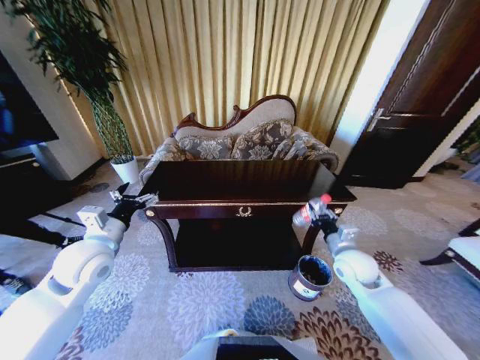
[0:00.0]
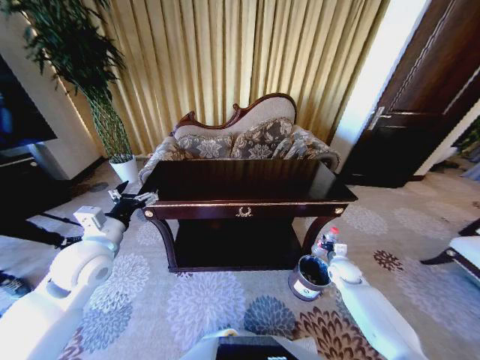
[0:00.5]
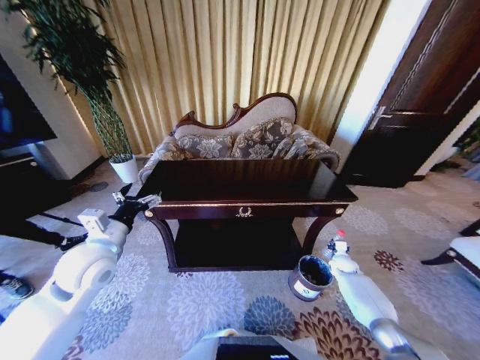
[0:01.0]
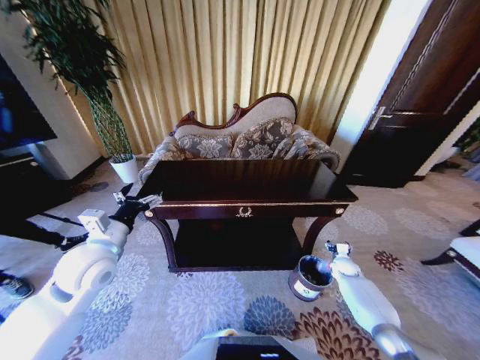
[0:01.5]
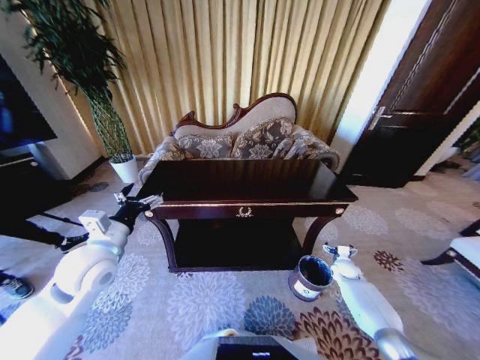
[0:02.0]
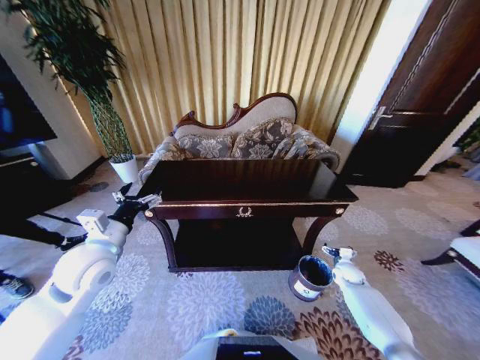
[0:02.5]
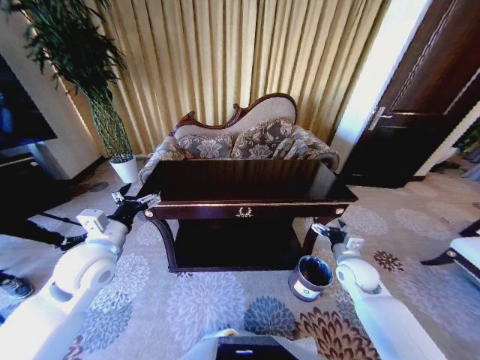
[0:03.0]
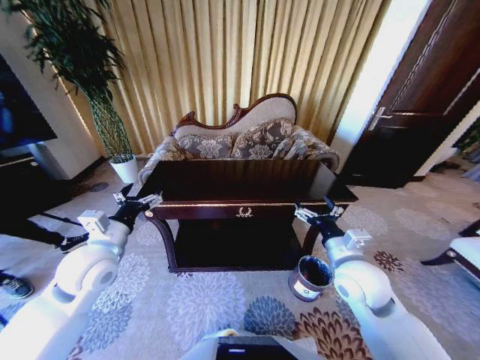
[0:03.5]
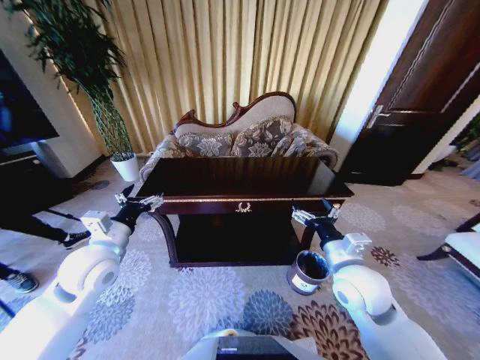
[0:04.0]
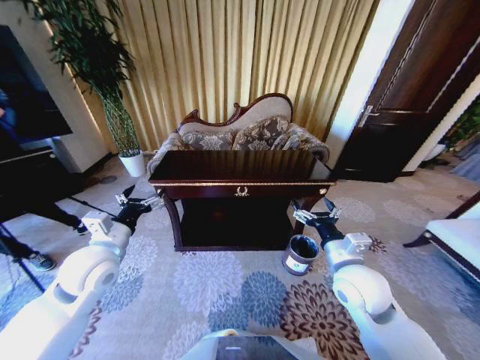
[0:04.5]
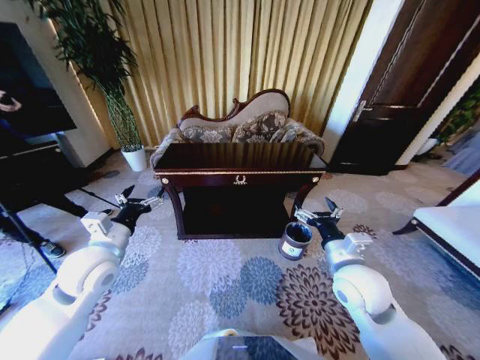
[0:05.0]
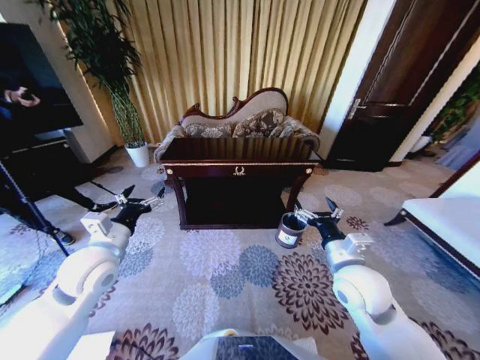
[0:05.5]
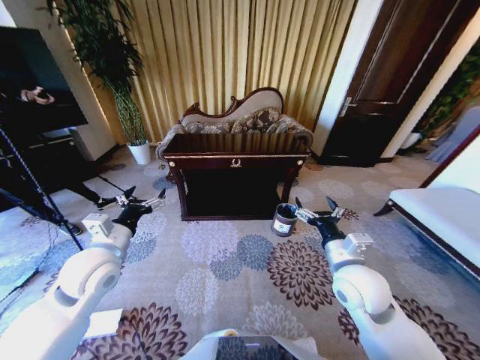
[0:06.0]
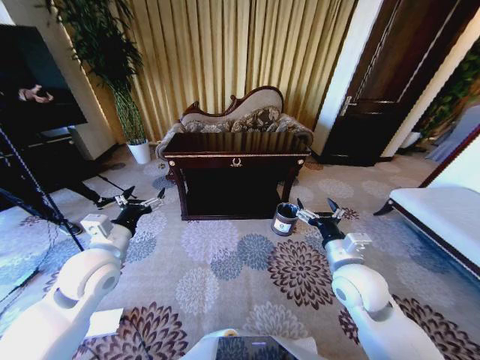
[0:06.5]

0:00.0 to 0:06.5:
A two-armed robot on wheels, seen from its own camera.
Task of the whole recording: Move to the front of the table and place the trash on the table into the trash bin.
0:00.0 to 0:02.0: The right gripper goes about 25 cm downward and to the right, and opens.
0:02.0 to 0:04.5: The right gripper travels upward, to the left and backward by some 40 cm.

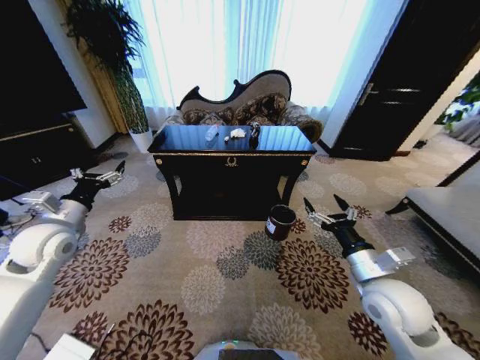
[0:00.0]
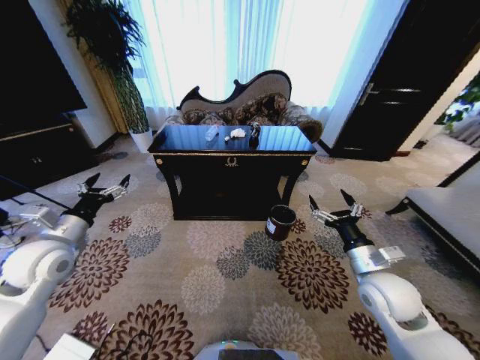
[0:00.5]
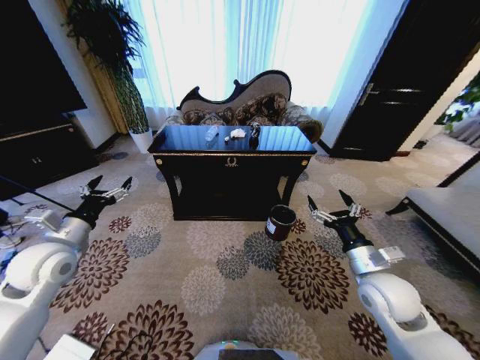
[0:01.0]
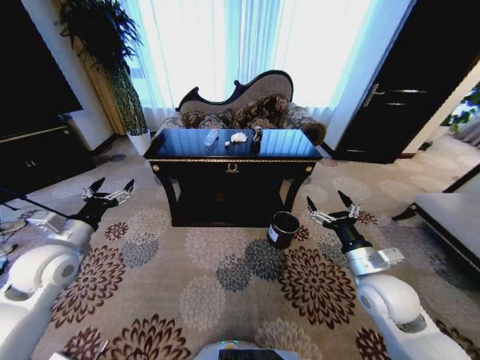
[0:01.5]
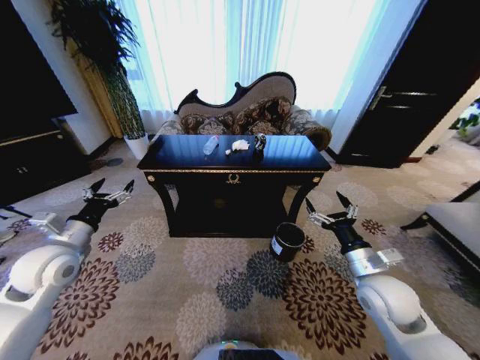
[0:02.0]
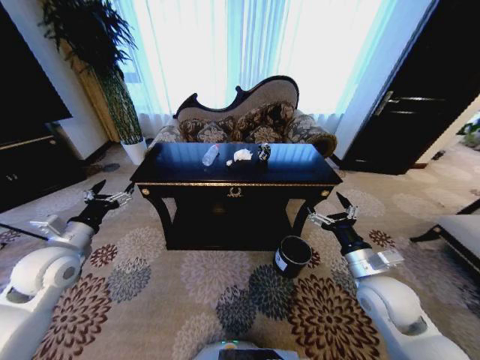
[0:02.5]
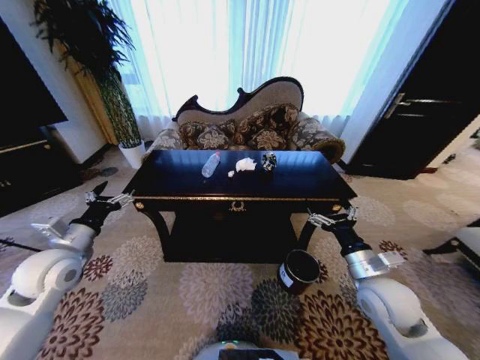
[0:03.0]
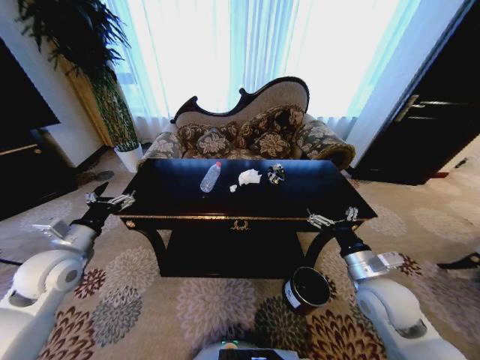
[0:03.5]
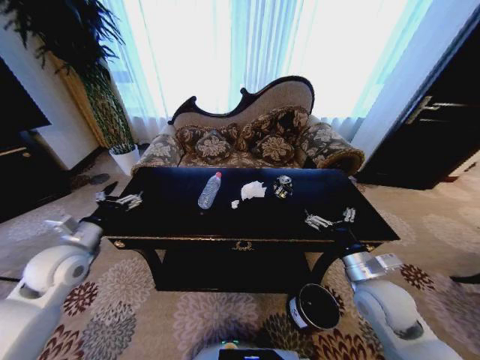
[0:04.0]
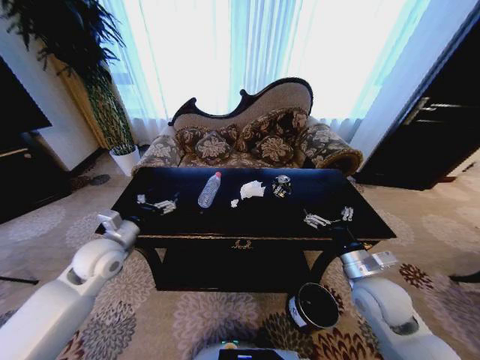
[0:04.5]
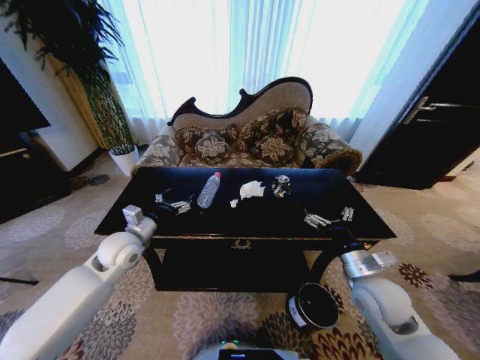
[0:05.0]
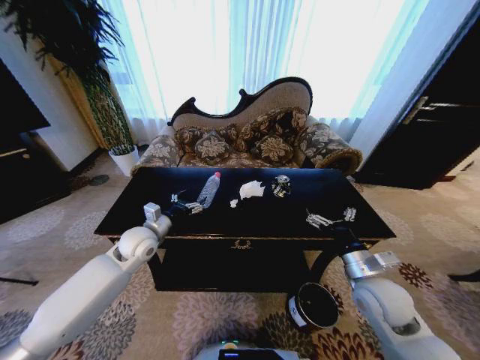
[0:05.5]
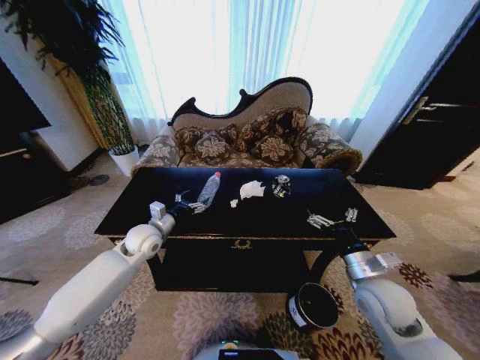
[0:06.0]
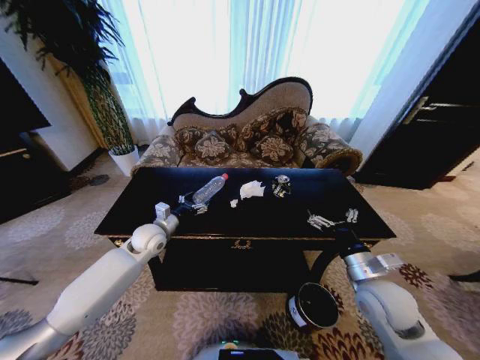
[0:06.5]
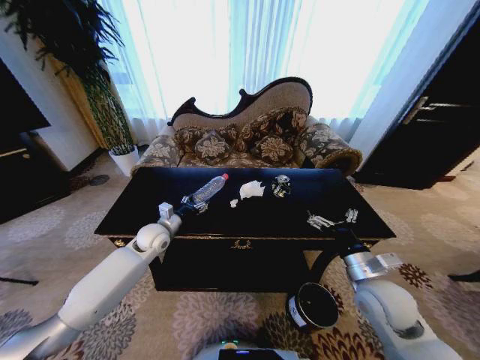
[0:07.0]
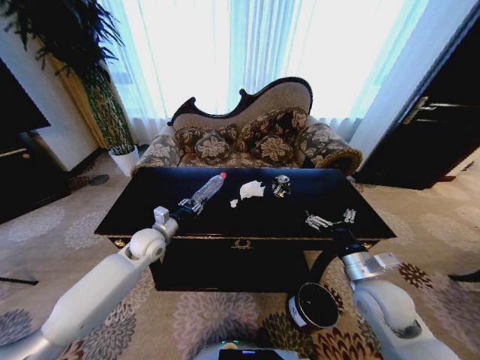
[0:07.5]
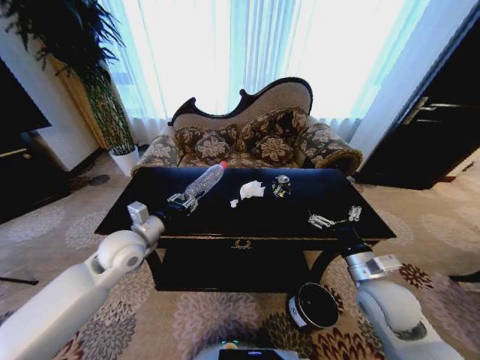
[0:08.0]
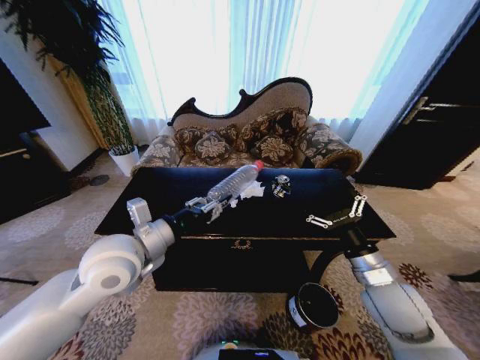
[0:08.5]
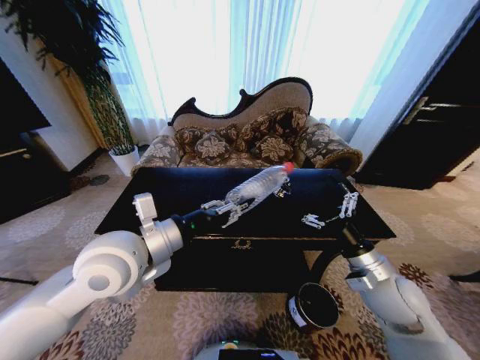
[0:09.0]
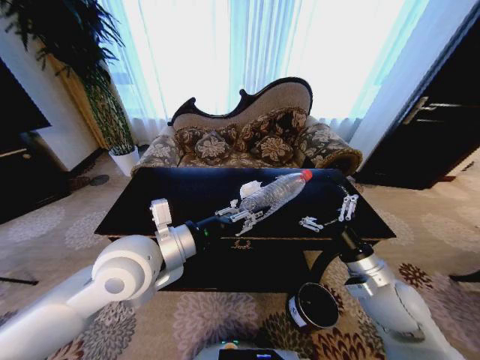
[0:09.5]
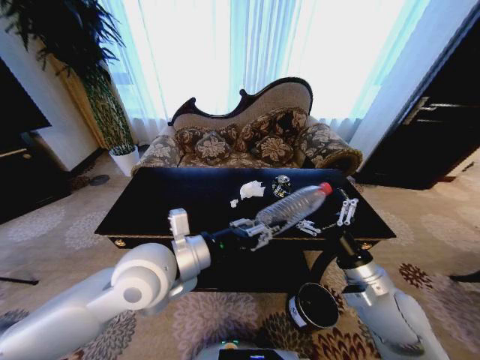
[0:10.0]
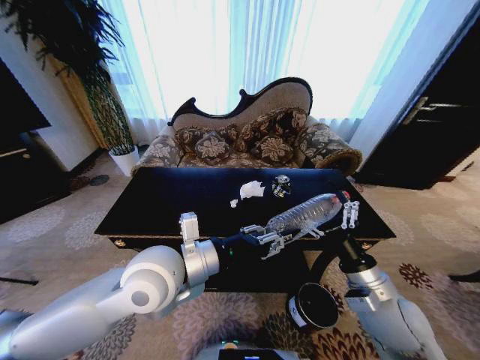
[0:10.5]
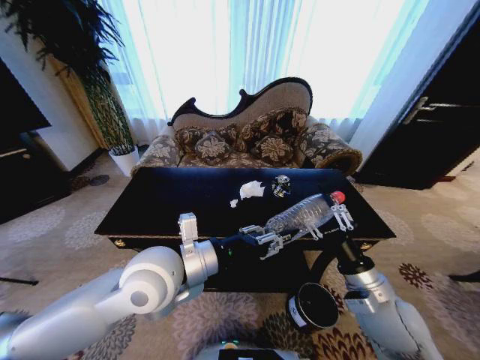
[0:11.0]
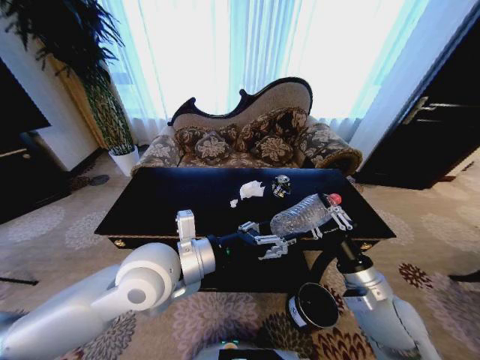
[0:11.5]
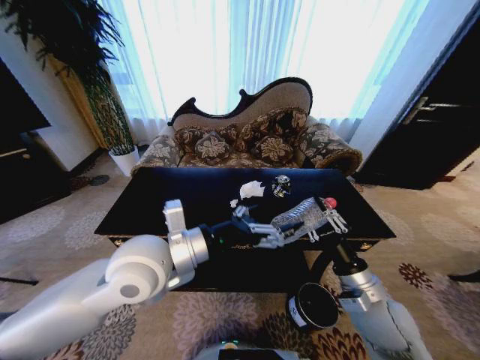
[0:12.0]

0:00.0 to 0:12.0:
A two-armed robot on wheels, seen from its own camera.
Task of the whole recording: Move to the front of the table and place the trash on the table into the trash bin.
0:04.0 to 0:06.0: The left gripper travels to the right, forward and downward by roughly 20 cm.
0:06.0 to 0:08.0: The left gripper is displaced backward and upward by some 10 cm, and closes up.
0:08.0 to 0:10.0: The left gripper goes roughly 15 cm to the right, backward and upward.
0:10.0 to 0:12.0: The right gripper closes its fingers, while the left gripper opens.

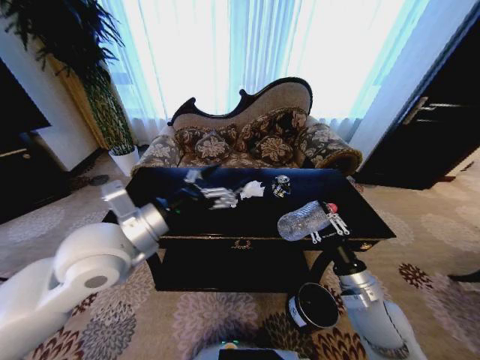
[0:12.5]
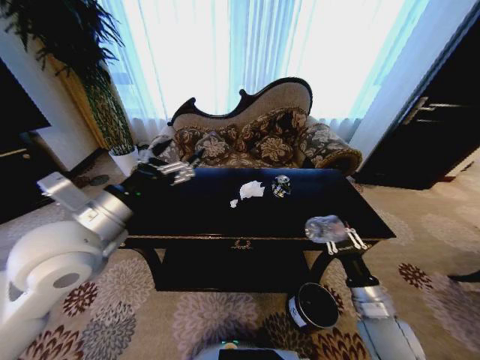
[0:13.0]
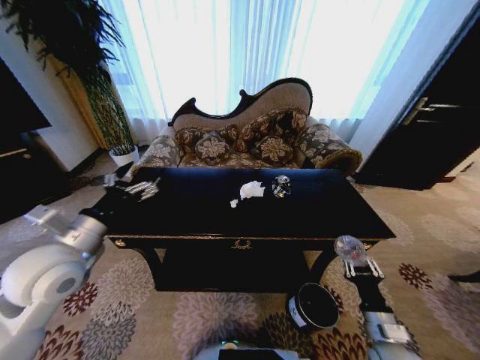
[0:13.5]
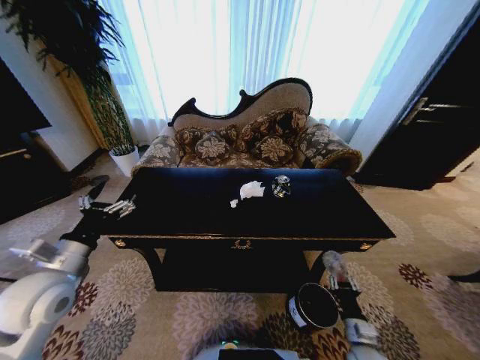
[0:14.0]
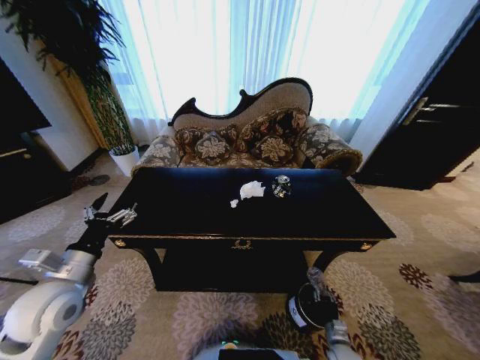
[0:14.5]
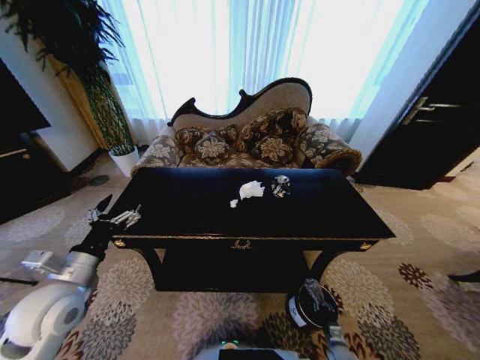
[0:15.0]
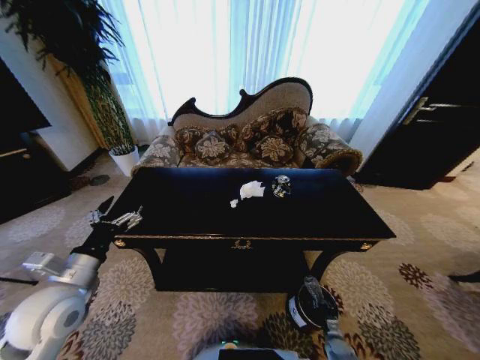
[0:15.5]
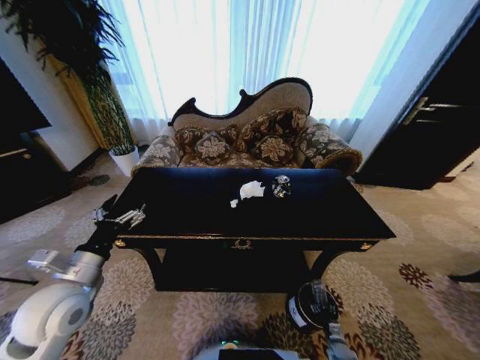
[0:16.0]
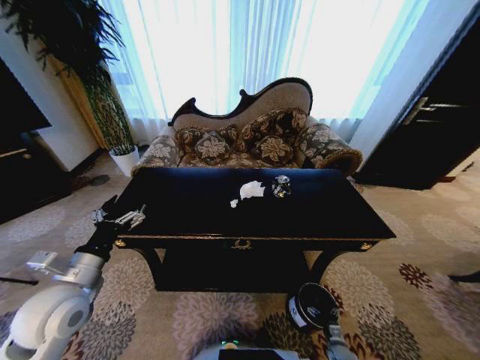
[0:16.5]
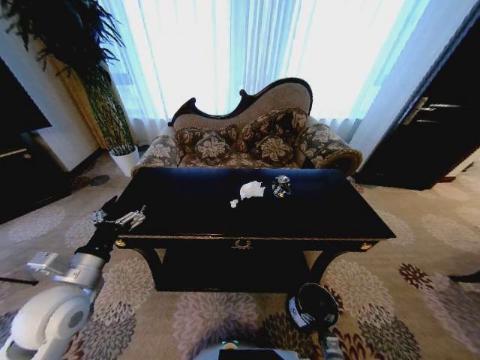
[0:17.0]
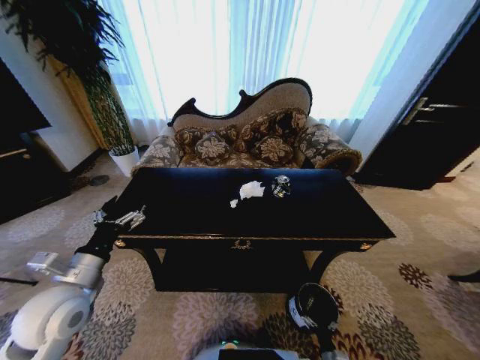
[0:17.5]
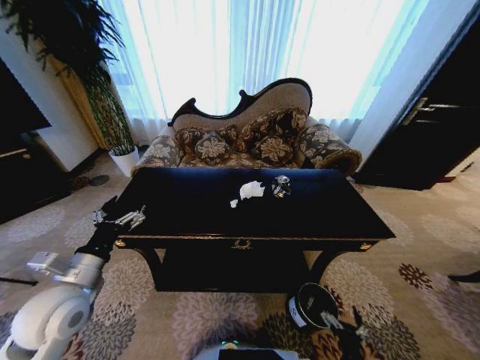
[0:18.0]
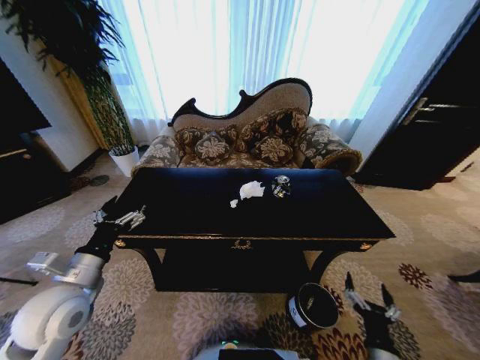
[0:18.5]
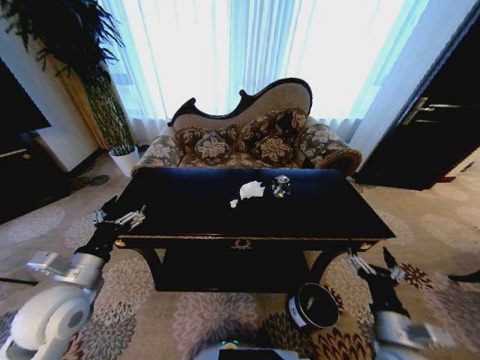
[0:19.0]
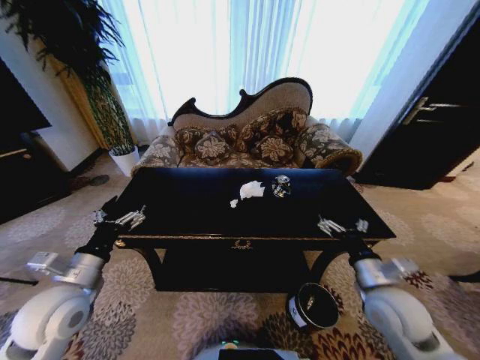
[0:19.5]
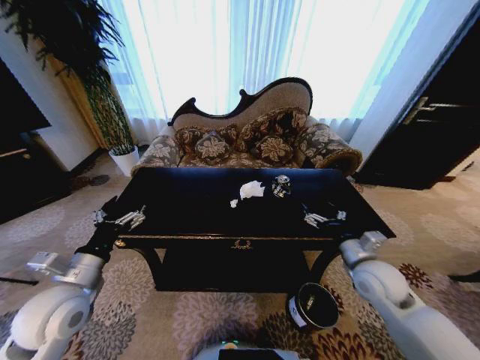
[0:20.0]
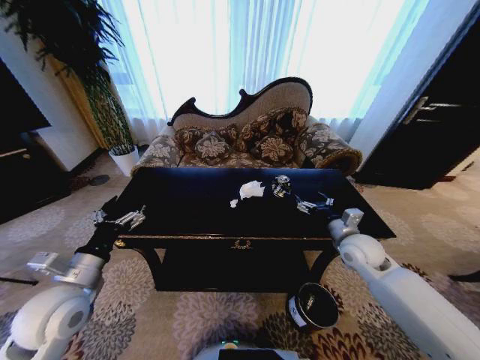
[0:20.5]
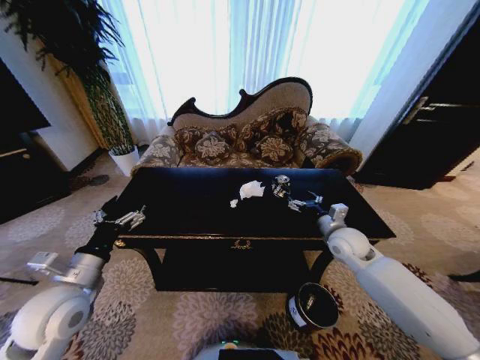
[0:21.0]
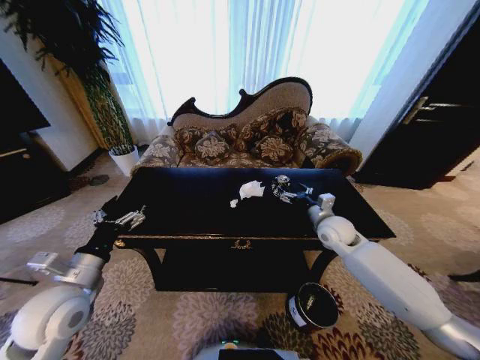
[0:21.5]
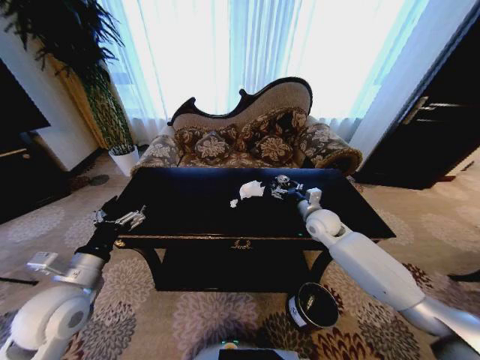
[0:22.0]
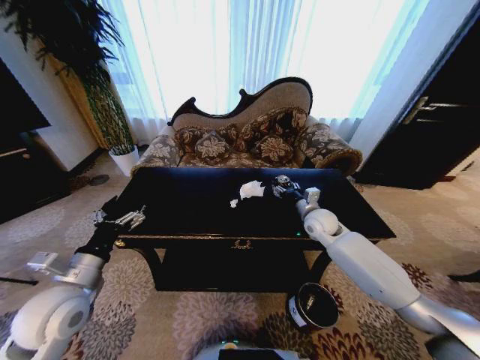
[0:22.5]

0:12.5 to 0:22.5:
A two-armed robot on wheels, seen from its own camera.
Task of the whole recording: Move to the front of the table and place the trash on the table into the trash bin.
0:12.5 to 0:14.5: The left gripper goes roughly 20 cm to the left and downward. The right gripper travels downward by about 35 cm.
0:16.5 to 0:18.5: The right gripper moves upward, approximately 30 cm.
0:18.5 to 0:20.5: The right gripper travels forward and upward by approximately 35 cm.
0:20.5 to 0:22.5: The right gripper heads forward and to the left, covering roughly 15 cm, and closes its fingers.
